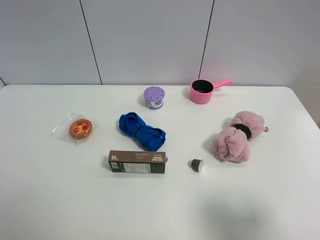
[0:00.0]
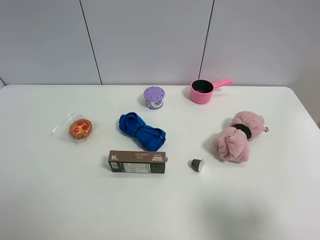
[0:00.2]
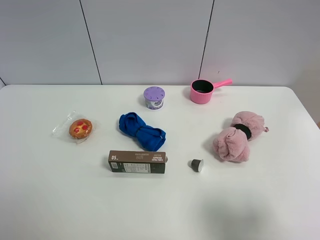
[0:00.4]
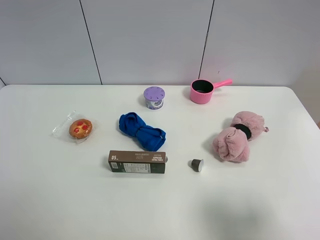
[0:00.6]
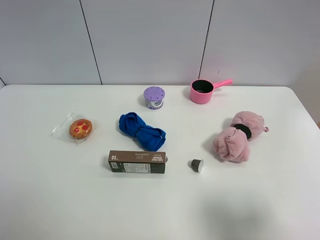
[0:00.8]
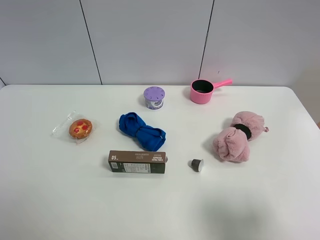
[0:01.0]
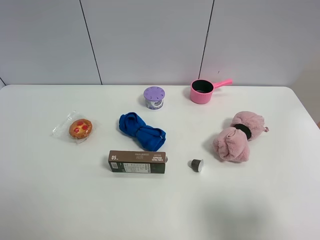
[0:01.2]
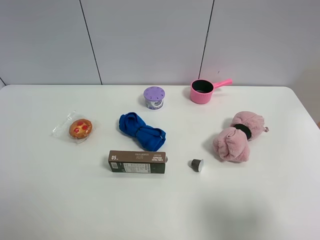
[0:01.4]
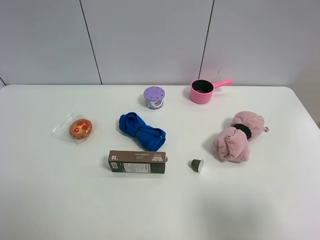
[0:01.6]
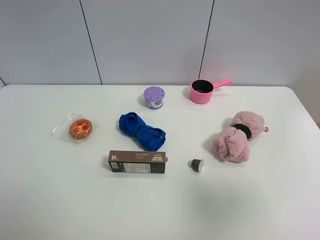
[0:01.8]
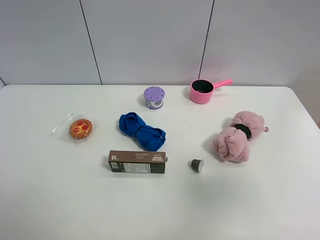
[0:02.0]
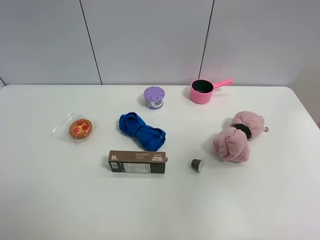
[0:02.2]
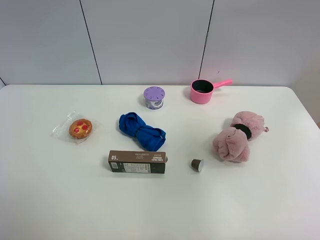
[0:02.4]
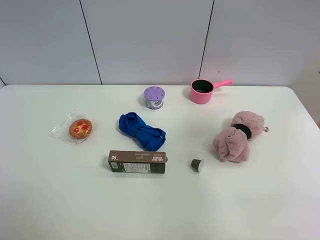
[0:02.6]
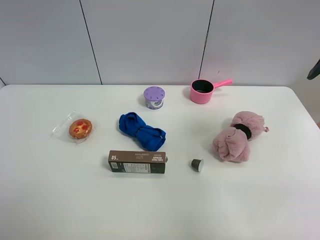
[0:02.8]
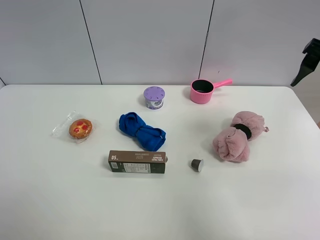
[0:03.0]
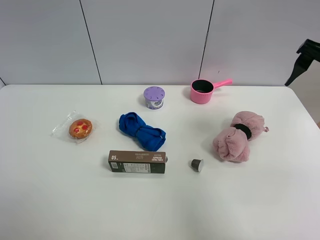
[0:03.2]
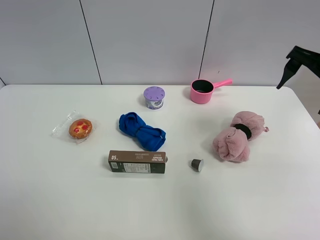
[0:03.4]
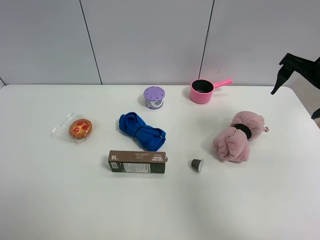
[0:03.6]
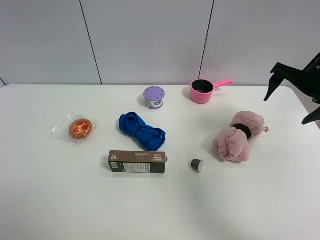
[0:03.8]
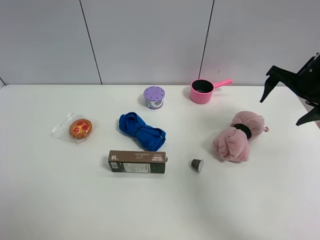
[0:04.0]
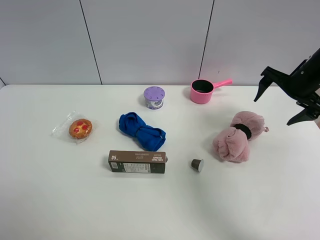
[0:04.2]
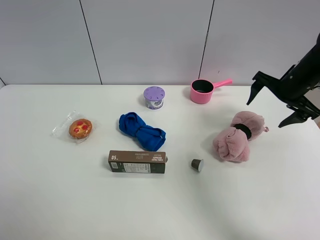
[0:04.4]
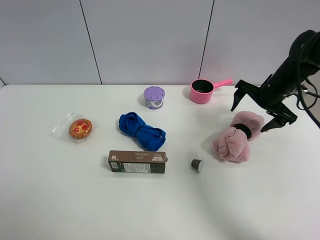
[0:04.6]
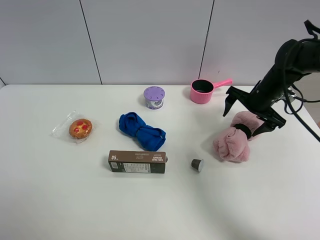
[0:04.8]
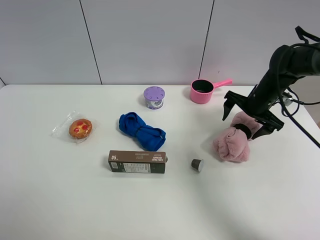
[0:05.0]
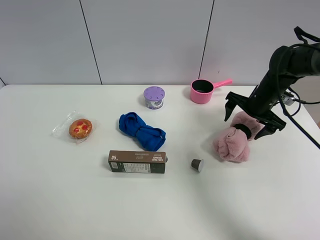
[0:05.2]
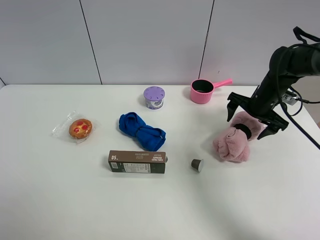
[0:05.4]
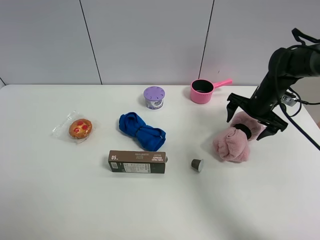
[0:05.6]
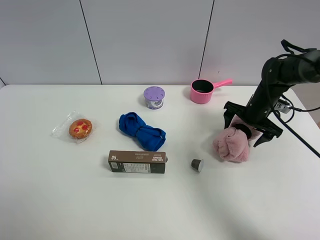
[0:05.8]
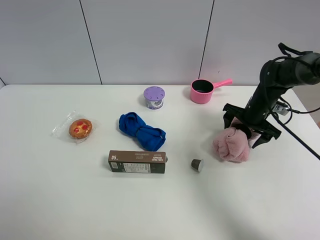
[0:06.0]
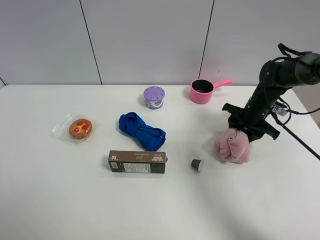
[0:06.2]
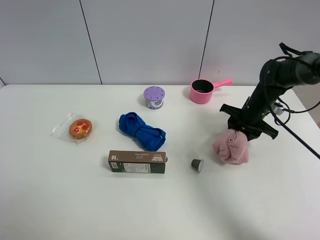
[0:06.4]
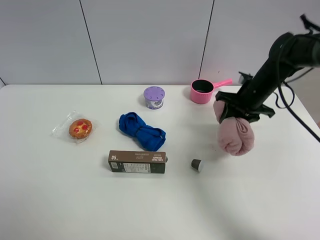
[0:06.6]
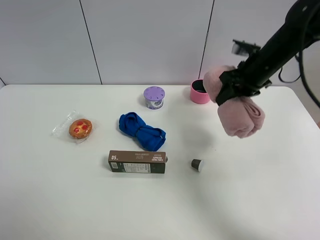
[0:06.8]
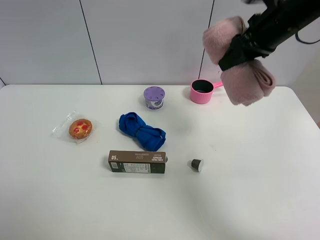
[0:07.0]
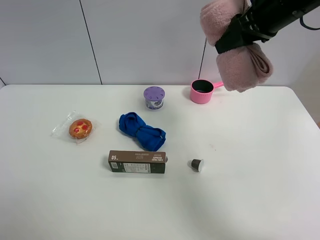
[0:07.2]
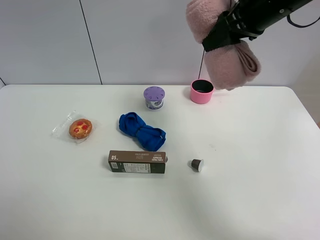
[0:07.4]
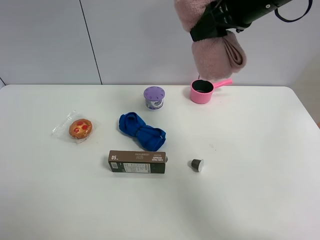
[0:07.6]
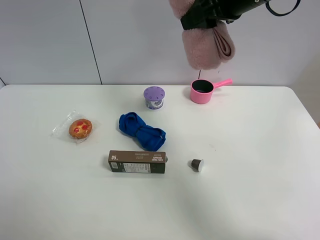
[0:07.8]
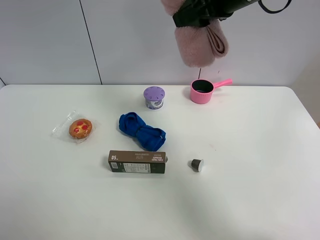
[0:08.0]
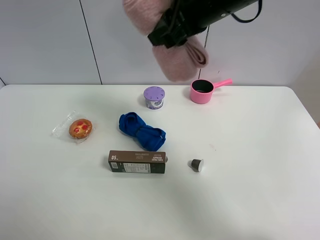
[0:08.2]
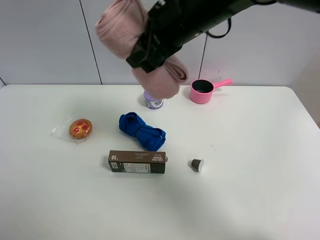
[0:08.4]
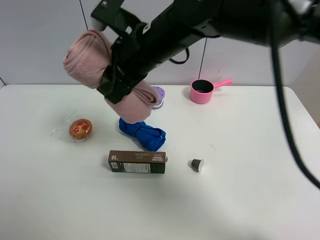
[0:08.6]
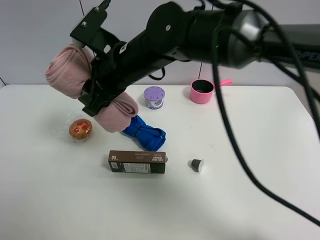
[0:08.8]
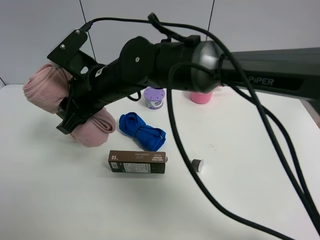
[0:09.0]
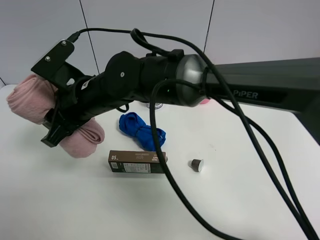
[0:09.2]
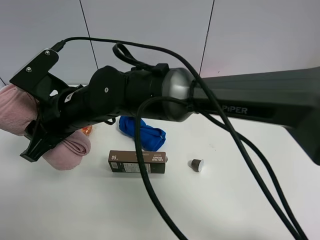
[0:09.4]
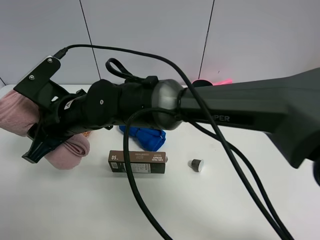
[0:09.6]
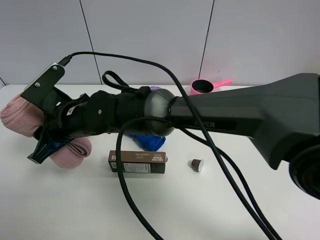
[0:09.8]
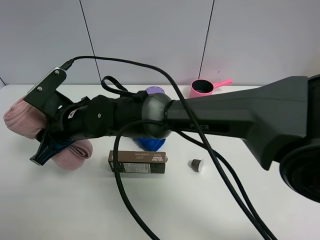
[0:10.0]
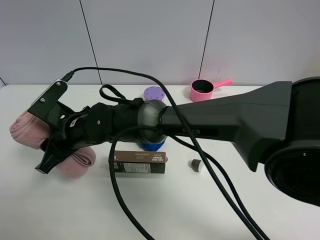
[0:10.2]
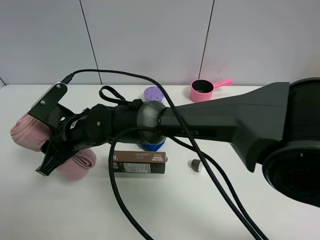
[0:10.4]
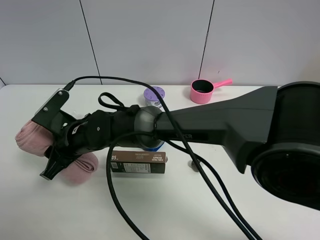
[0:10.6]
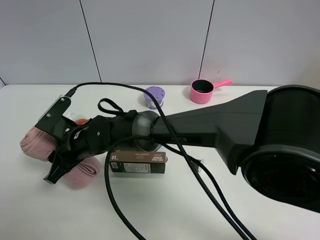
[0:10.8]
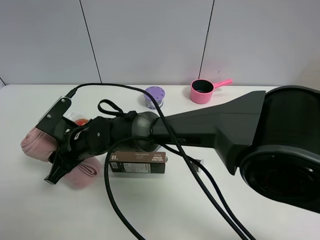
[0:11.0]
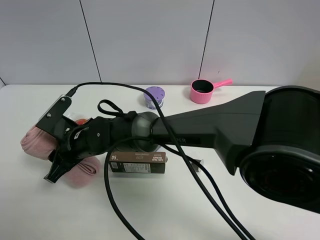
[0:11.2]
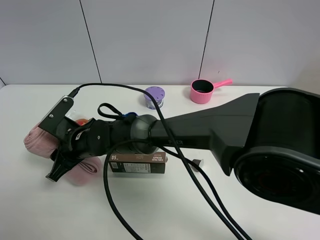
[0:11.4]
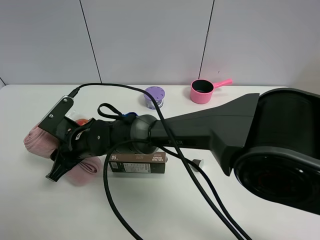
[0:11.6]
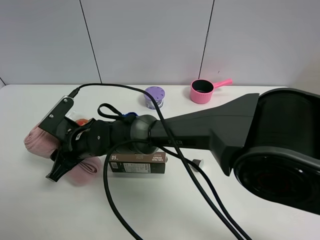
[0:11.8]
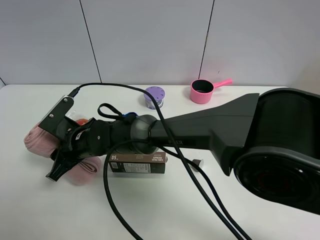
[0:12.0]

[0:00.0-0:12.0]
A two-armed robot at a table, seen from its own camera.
Task of the whole recording: the gripper move the object.
Step, 0:00.0 to 0:06.2: Grasp the pink towel with the right gripper.
0:01.6 to 0:03.0: The right gripper is displaced forward by roughly 25 cm.
0:03.0 to 0:04.4: The right gripper is displaced downward and forward by roughly 15 cm.
0:04.4 to 0:06.0: The right gripper moves downward, about 10 cm.
0:06.0 to 0:07.6: The right gripper heads upward and to the left, covering some 30 cm, and closes.
0:07.6 to 0:09.0: The right gripper travels to the left and downward by roughly 30 cm.
0:09.0 to 0:10.4: The right gripper moves downward, approximately 10 cm.

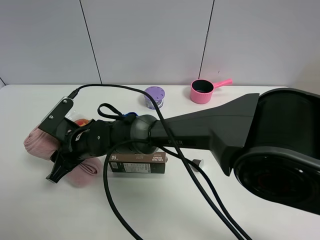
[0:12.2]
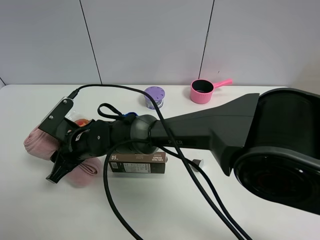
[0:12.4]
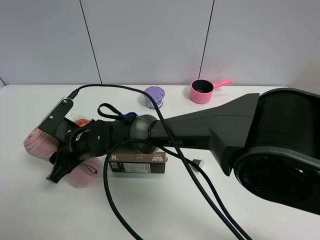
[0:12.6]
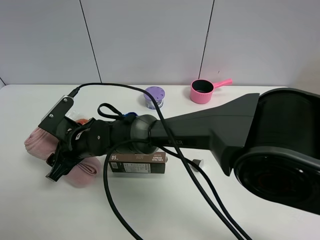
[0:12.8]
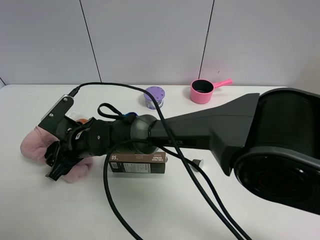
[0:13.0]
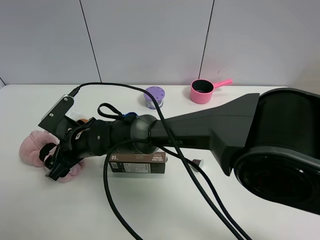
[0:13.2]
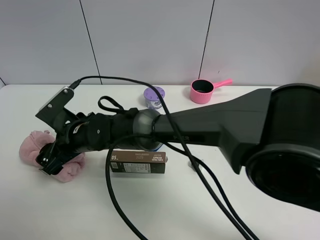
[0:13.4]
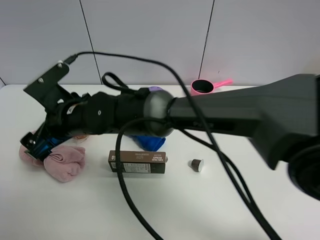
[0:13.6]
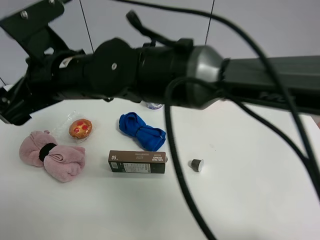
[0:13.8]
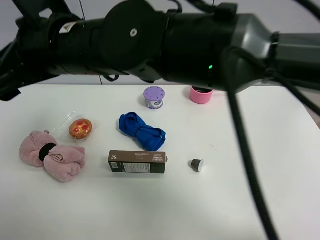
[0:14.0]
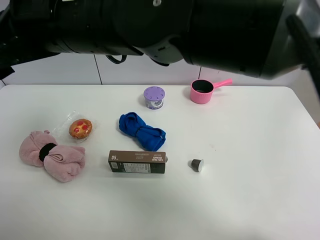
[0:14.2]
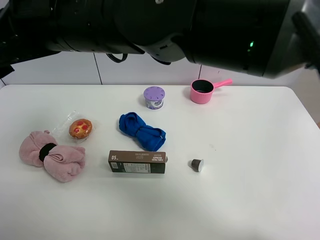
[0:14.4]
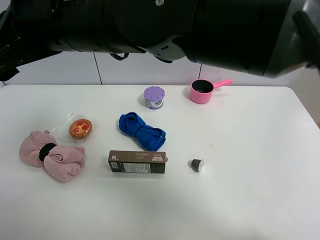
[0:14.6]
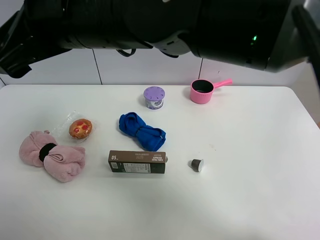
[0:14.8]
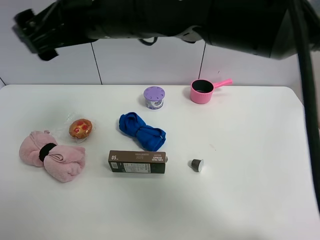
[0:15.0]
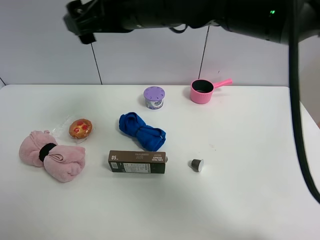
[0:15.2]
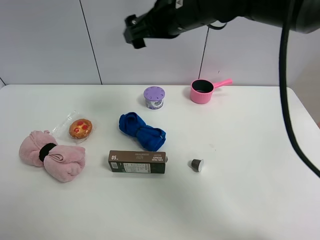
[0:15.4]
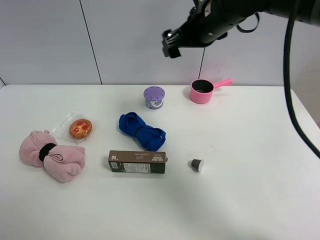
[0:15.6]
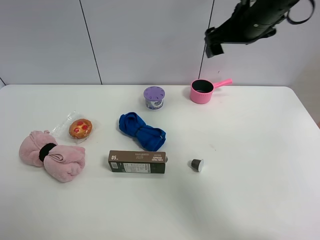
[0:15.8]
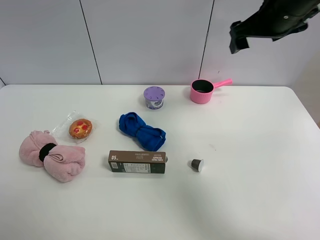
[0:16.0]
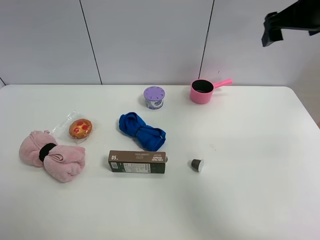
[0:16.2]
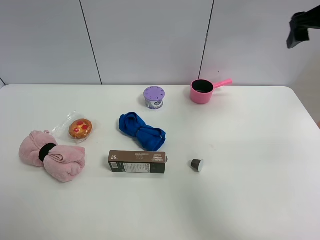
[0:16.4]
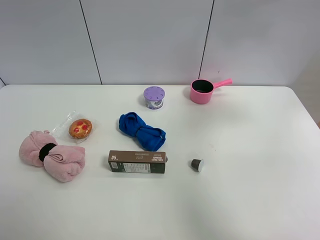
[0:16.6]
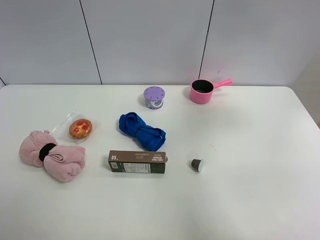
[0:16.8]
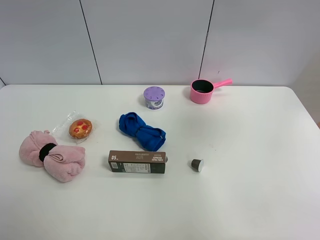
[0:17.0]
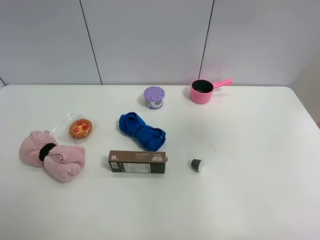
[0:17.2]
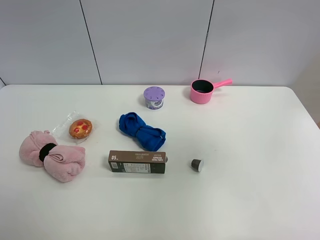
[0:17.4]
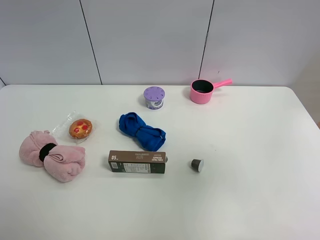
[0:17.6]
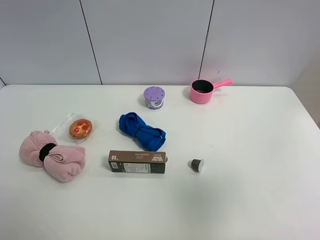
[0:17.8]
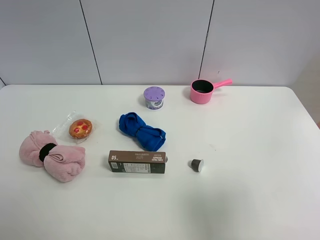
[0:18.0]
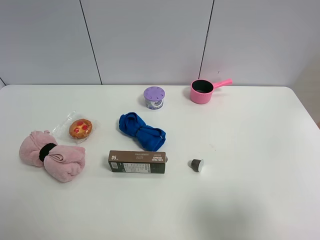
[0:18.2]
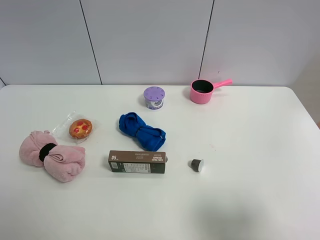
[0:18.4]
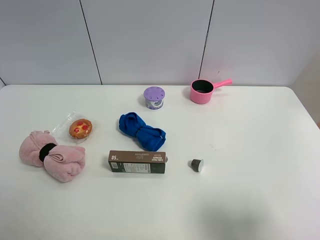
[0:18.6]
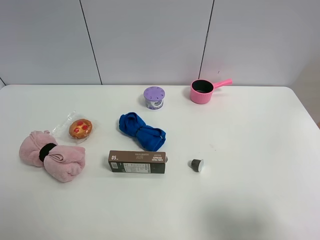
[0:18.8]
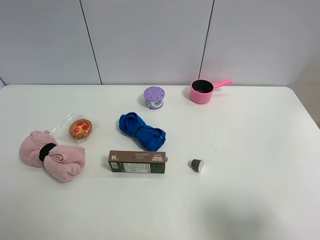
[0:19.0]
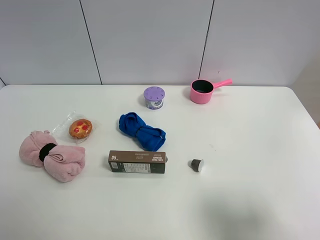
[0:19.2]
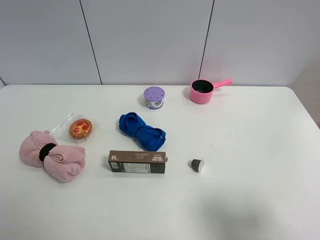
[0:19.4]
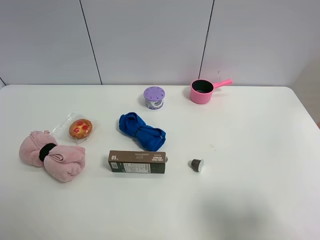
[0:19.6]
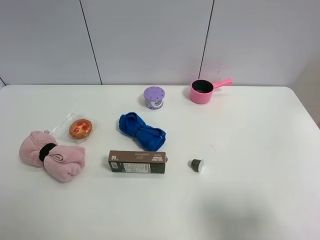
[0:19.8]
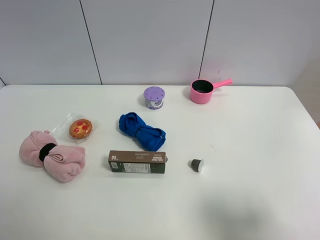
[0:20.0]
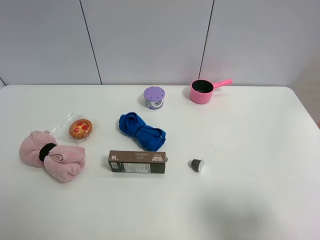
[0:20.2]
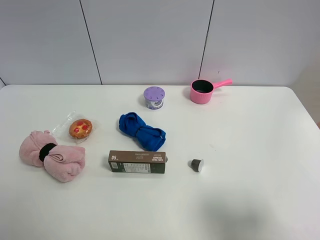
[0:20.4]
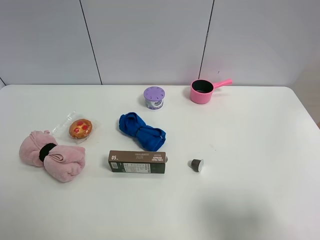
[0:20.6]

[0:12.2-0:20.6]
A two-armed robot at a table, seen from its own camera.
Task of the whole recording: the gripper move the object.
0:12.2 to 0:13.6: The right gripper goes approximately 10 cm upward, and opens up.
0:13.6 to 0:15.0: The right gripper travels upward and to the right by roughly 20 cm.
0:15.0 to 0:16.4: The right gripper shifts about 35 cm to the right.
0:16.4 to 0:17.8: The right gripper goes approximately 35 cm backward.
0:17.8 to 0:19.2: The right gripper is displaced downward by about 10 cm.
0:19.2 to 0:20.6: Both grippers stay put.

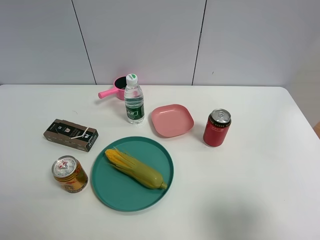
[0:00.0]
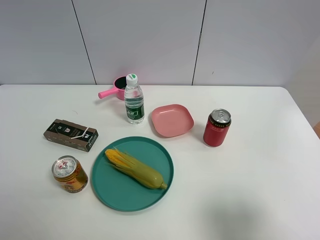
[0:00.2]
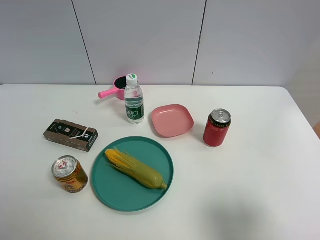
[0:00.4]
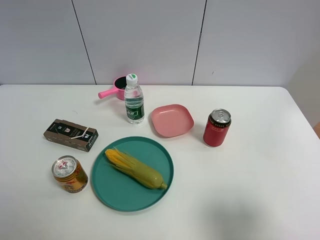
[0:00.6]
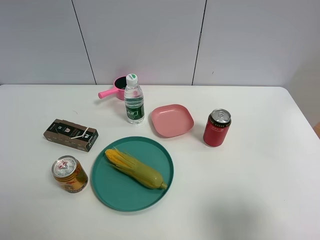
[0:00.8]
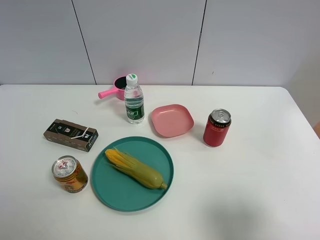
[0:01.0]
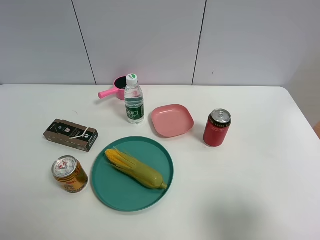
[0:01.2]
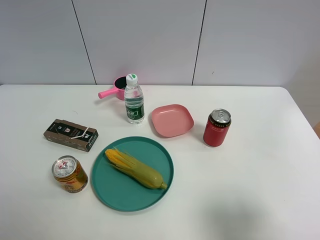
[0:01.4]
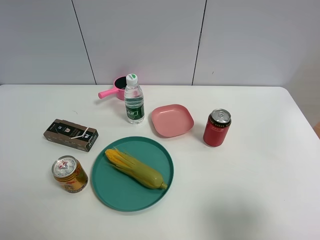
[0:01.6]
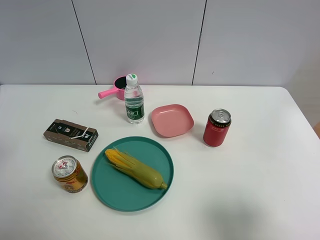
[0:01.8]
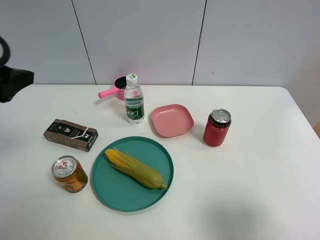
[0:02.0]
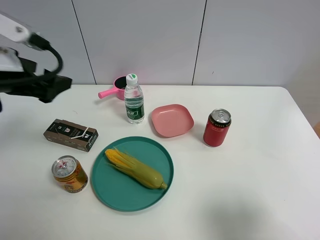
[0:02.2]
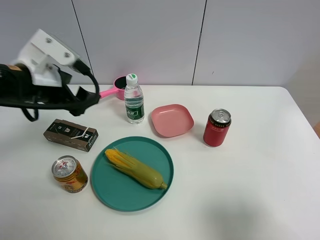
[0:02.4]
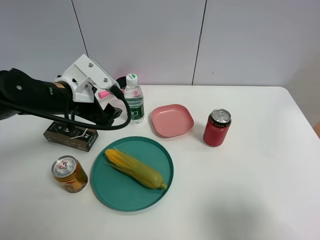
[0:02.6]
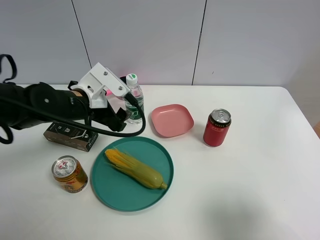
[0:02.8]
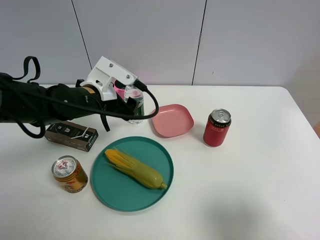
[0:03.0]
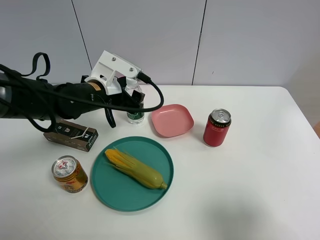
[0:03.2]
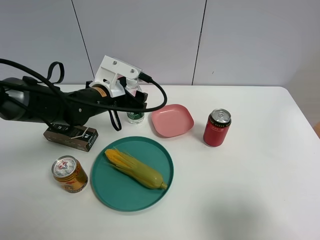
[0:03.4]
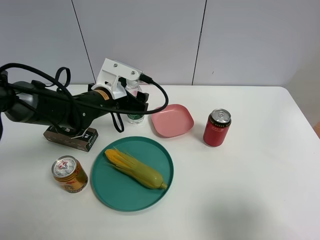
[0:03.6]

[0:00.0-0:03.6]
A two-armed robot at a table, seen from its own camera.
Task of the whole recording: the gripper move the object.
0:01.8 to 0:03.6: The left gripper heads downward, to the right and forward, covering approximately 30 cm.
